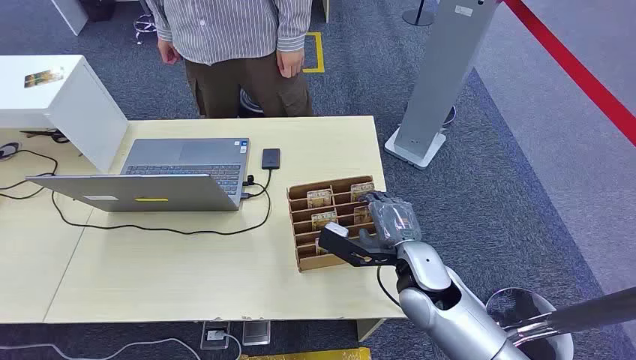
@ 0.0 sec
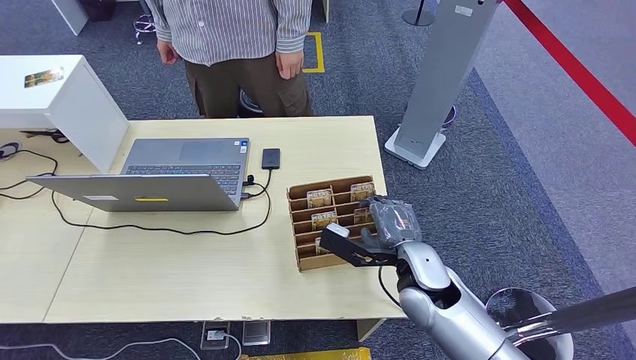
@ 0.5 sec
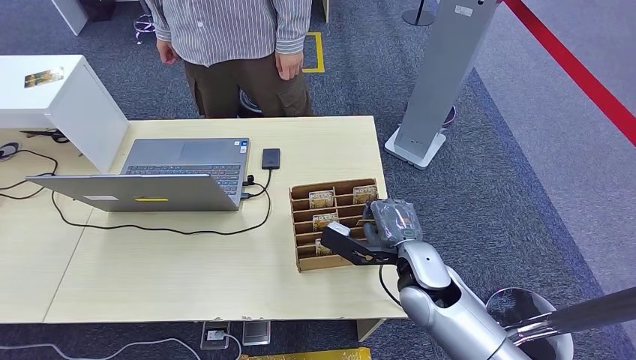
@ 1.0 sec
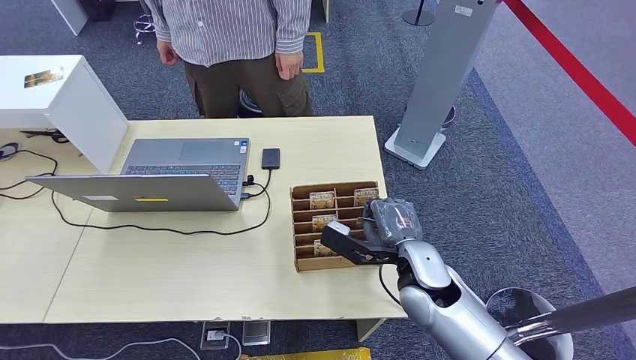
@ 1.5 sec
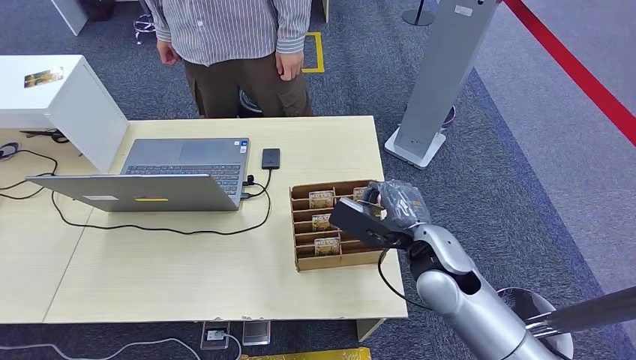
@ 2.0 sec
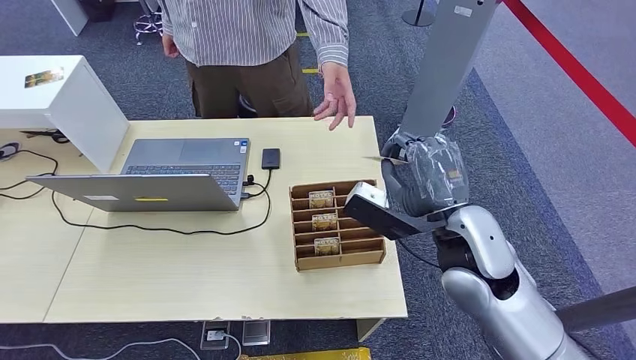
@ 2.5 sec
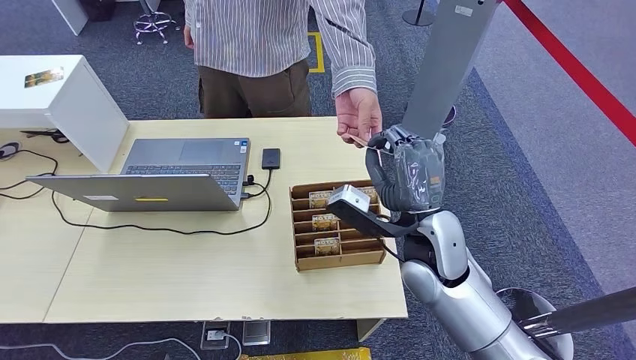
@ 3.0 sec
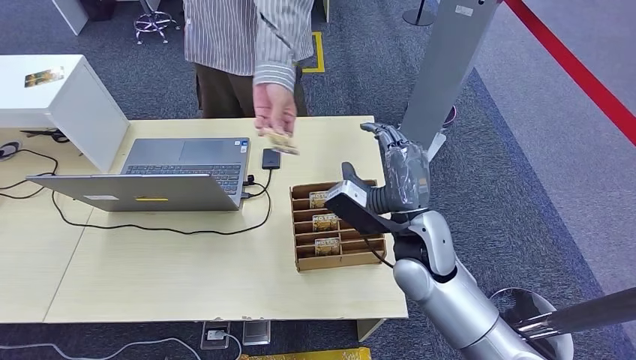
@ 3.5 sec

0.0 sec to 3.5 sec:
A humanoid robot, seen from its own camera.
Step, 0.0 sec to 2.0 sec: Pick up the key card from the card box.
2.0 sec to 3.5 sec: The right hand travels upward and back again, some 10 cm each way.

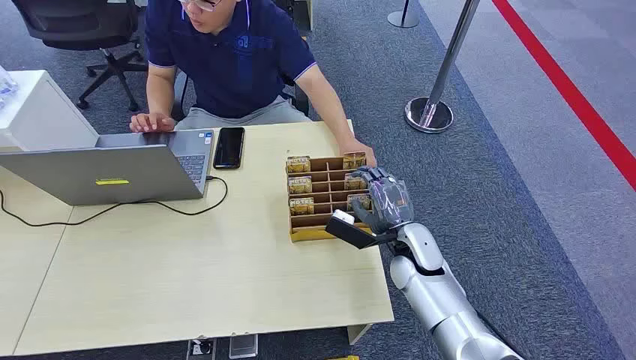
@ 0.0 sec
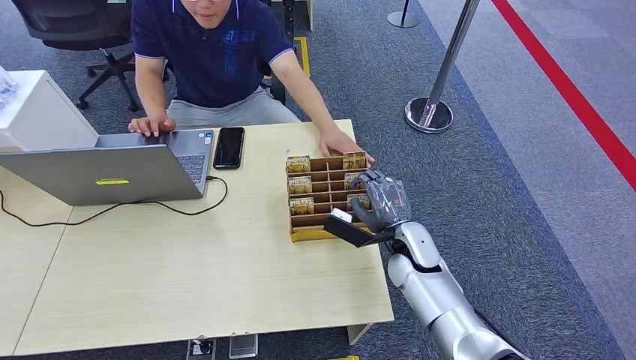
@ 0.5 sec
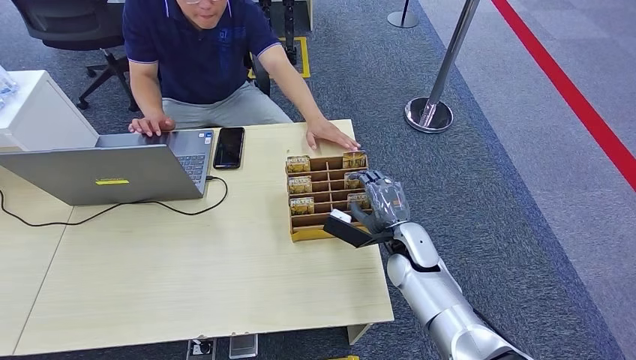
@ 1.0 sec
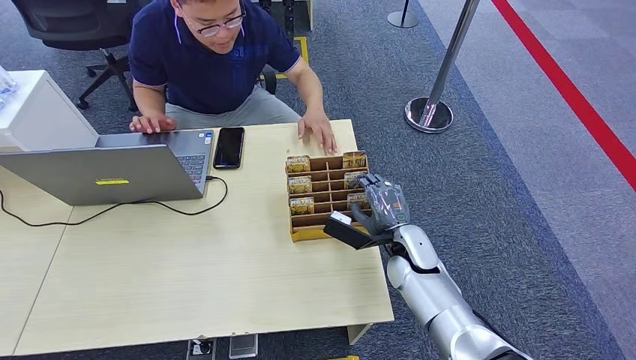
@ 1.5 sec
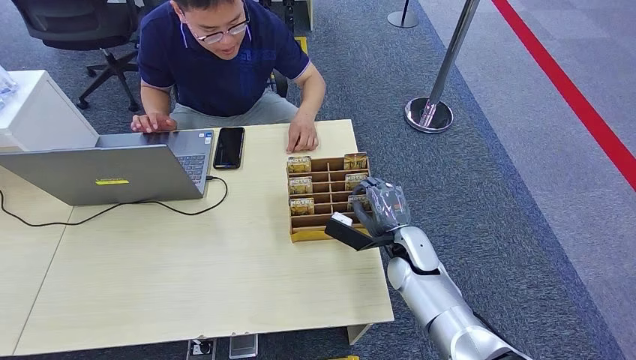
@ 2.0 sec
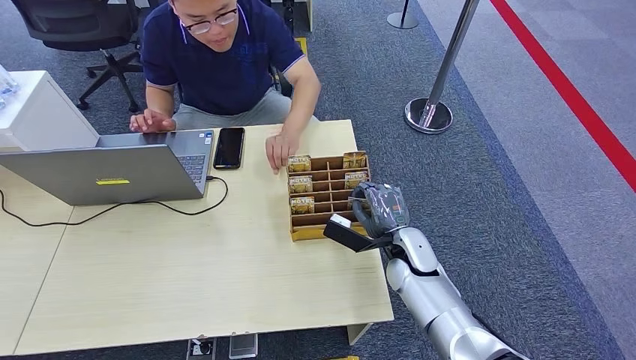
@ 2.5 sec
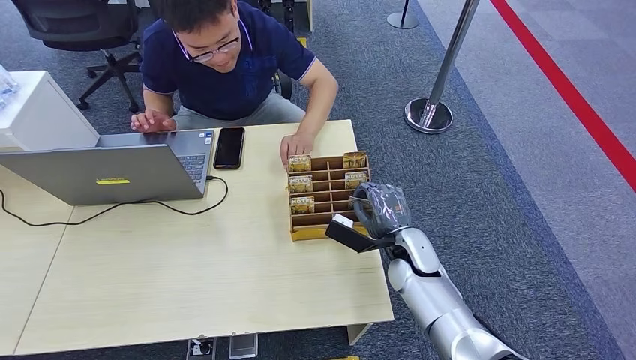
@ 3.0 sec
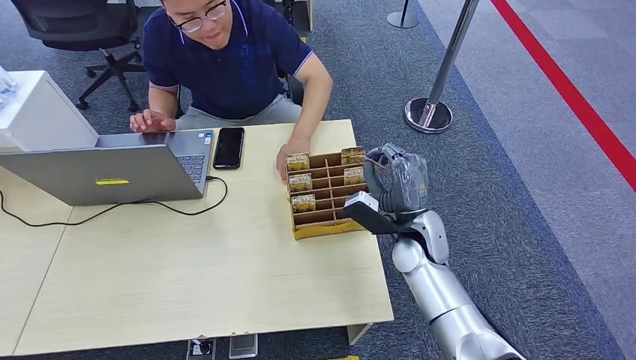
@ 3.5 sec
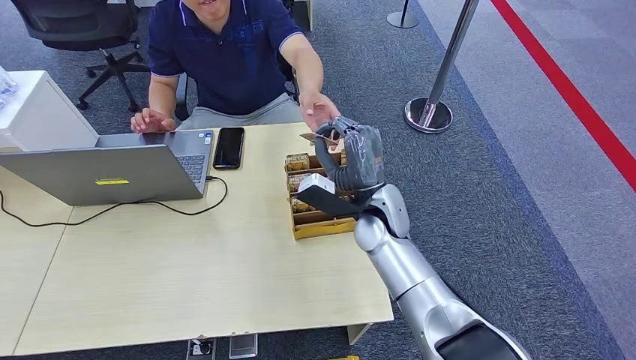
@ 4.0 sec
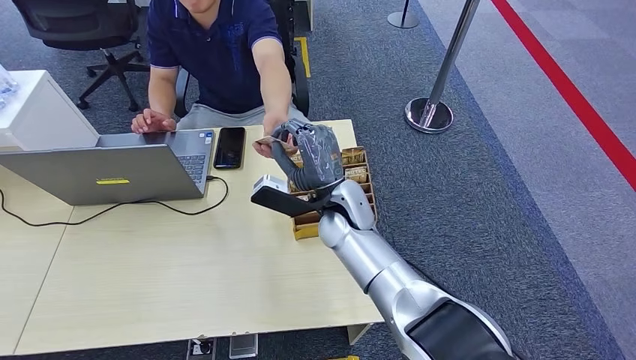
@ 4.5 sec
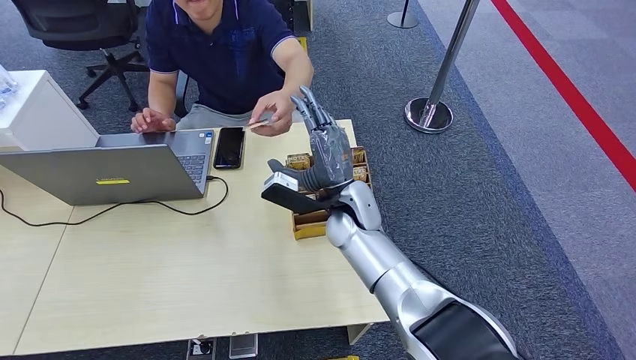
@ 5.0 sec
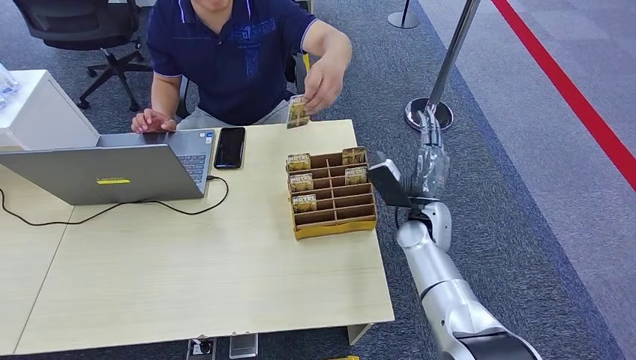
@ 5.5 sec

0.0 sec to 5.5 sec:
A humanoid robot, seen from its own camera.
Step, 0.0 sec to 3.0 sec: Pick up the key card from the card box.
Step, 3.5 sec to 5.5 sec: Hand the key card to the target.
2.0 sec to 3.5 sec: The right hand shifts some 5 cm upward.
3.5 sec to 5.5 sec: The right hand reaches some 15 cm to the left, then returns.

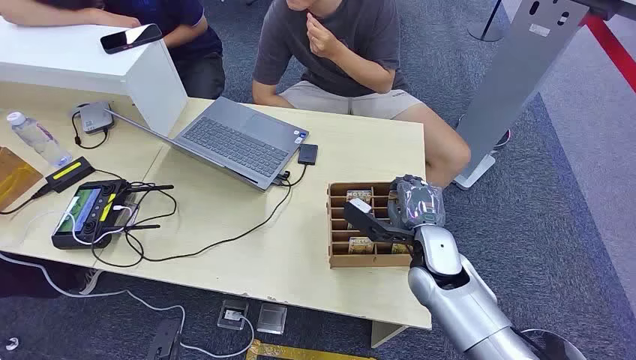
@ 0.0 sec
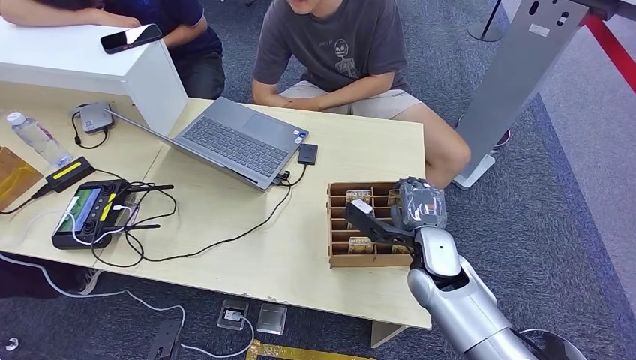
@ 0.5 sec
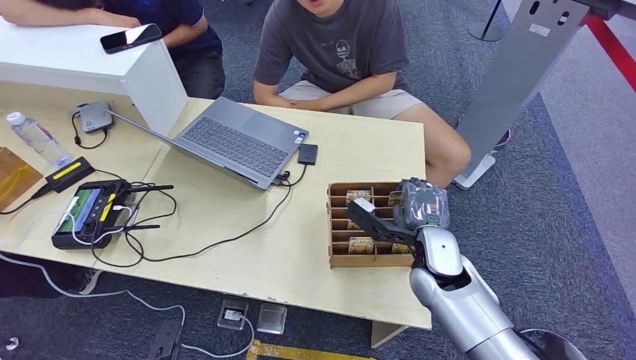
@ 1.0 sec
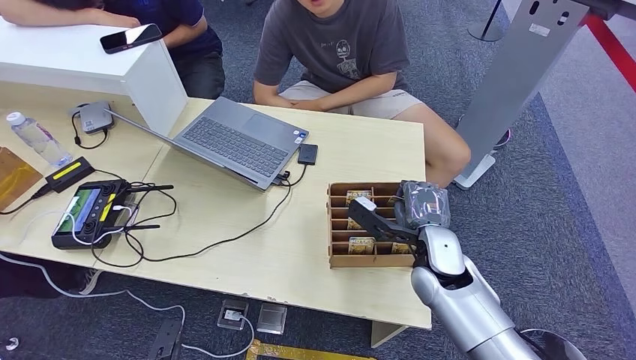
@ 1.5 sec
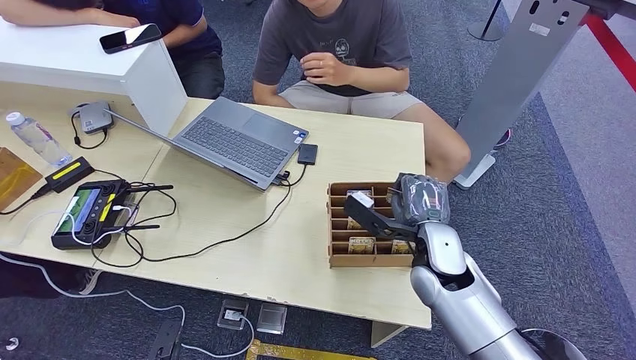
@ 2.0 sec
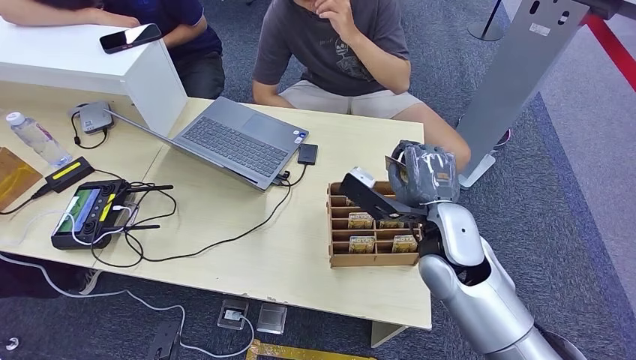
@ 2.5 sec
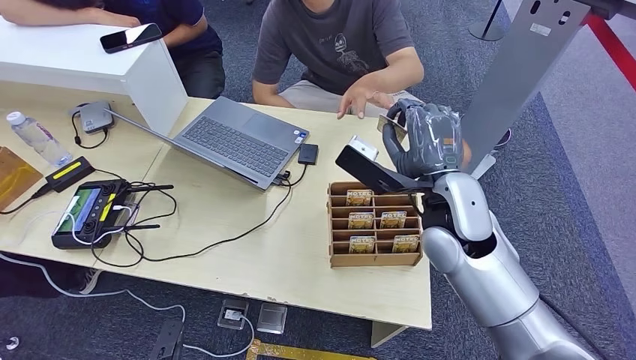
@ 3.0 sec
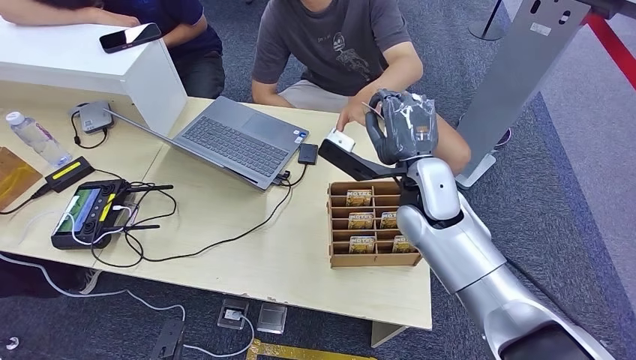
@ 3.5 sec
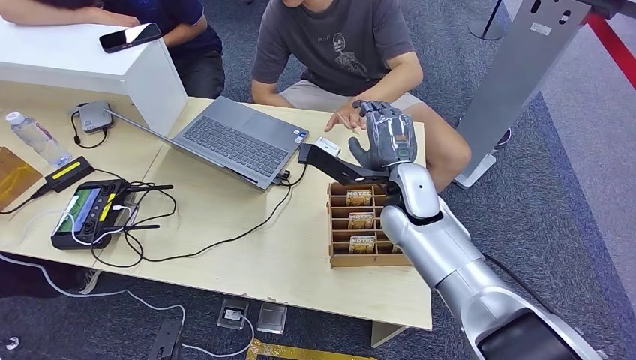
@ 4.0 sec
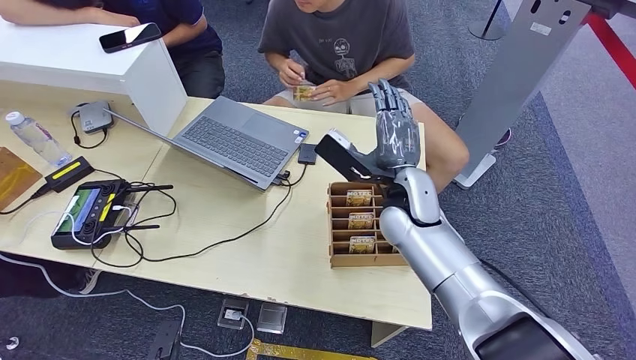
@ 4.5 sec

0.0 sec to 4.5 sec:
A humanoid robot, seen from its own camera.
Step, 0.0 sec to 2.5 sec: Pick up the key card from the card box.
Step, 3.0 sec to 4.5 sec: Hand the key card to the target.
2.0 sec to 4.5 sec: The right hand shifts roughly 10 cm upward, to the left and forward.
